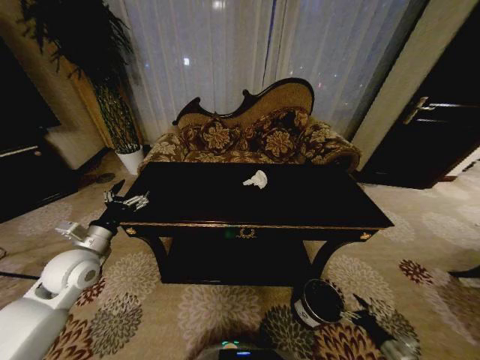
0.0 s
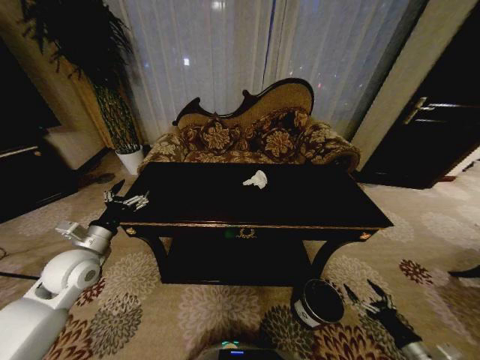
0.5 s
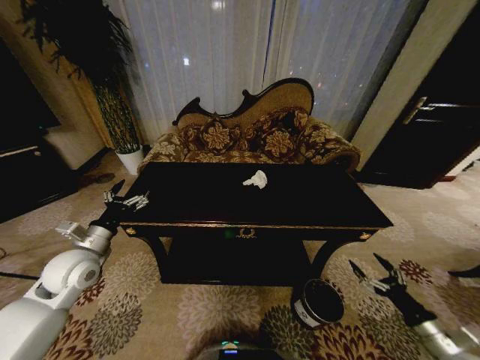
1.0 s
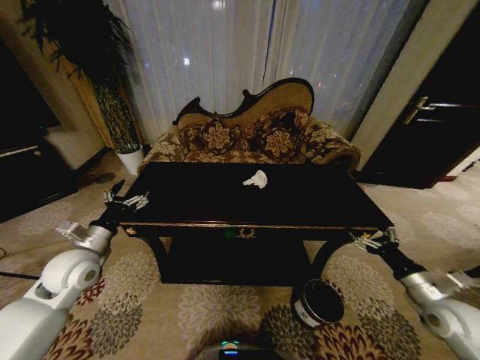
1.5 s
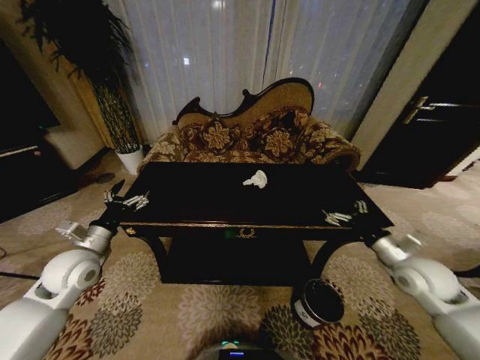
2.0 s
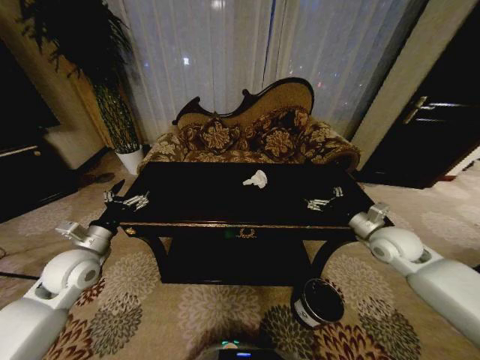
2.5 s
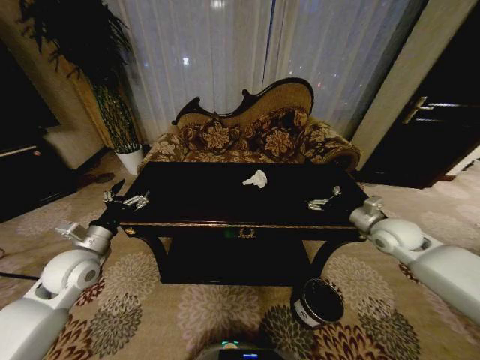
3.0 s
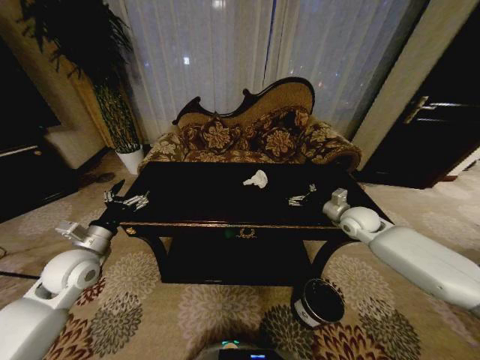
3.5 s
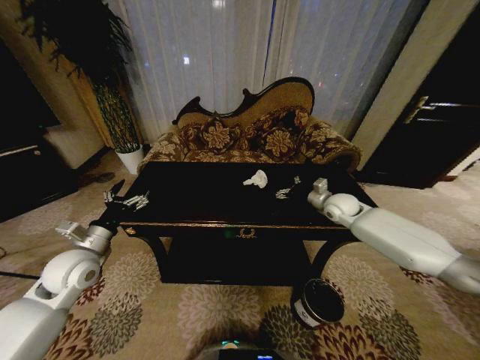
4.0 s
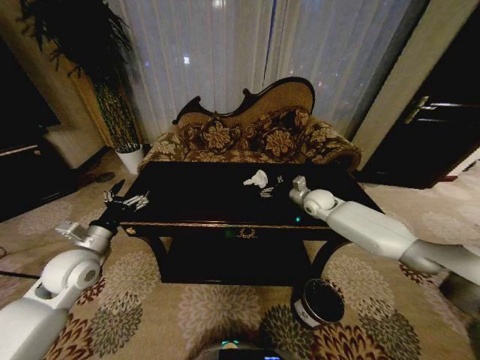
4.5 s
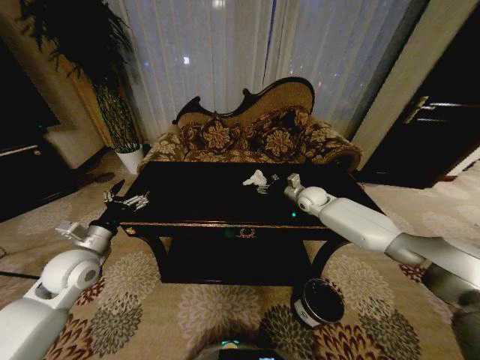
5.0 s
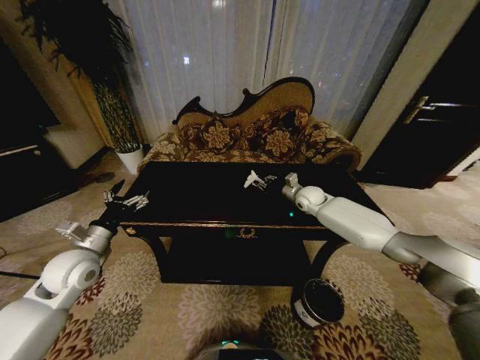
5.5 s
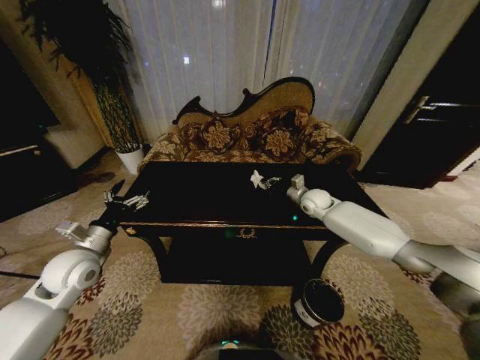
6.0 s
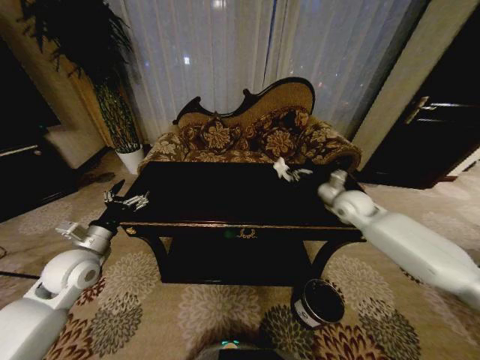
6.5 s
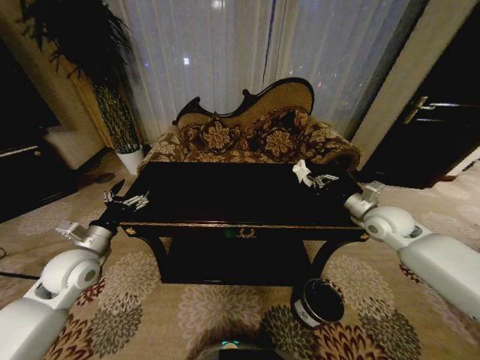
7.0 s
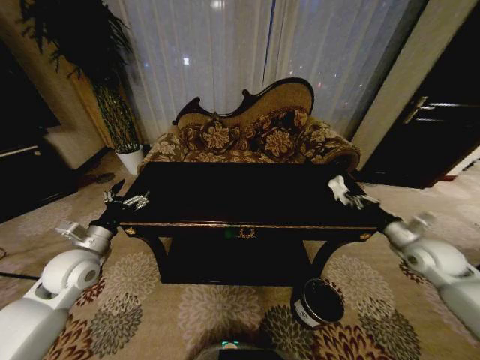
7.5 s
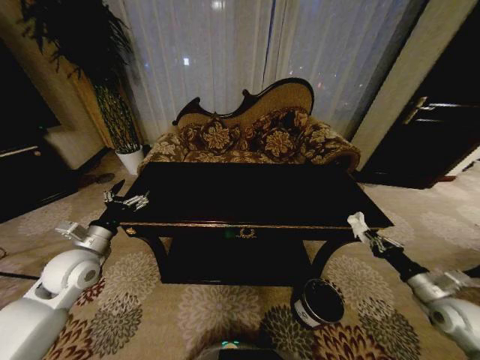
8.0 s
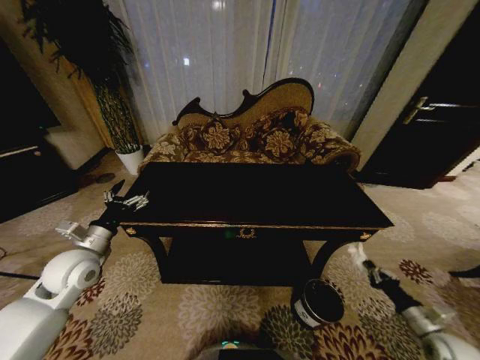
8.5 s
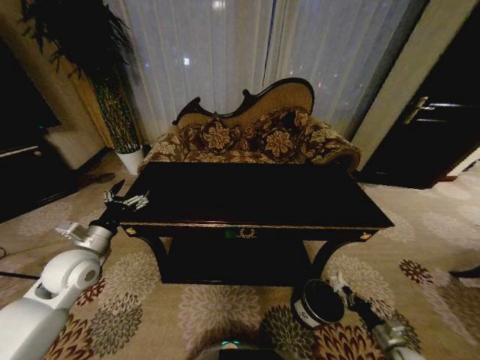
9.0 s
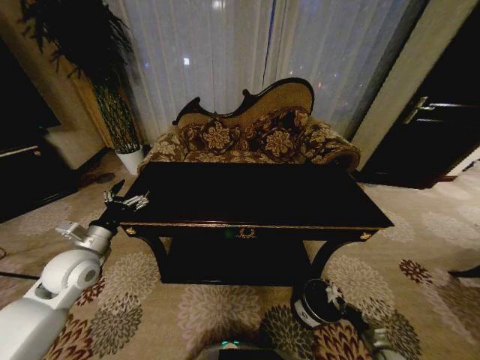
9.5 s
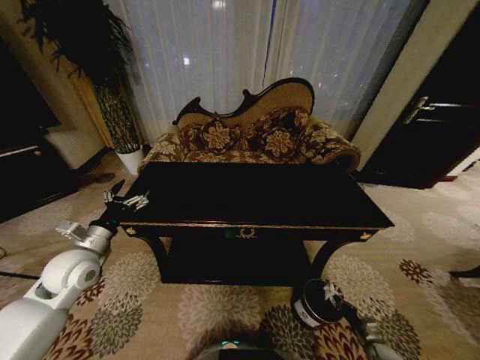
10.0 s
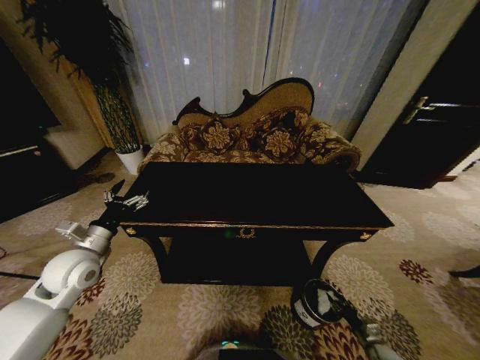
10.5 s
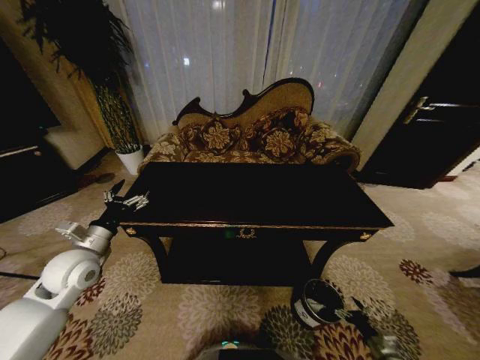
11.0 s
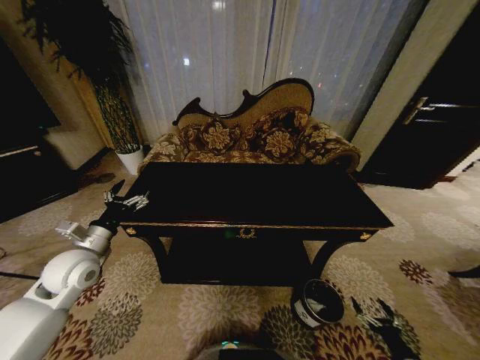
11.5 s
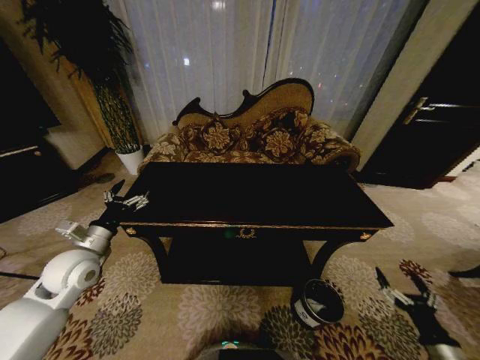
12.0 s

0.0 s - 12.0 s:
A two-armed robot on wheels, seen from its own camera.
Task of the whole recording: Move to the front of the table and place the trash on the table into the trash bin.
0.0 s - 2.0 s: The right gripper shifts some 35 cm upward and forward.
2.0 s - 4.0 s: The right gripper moves forward, about 20 cm.
4.0 s - 6.0 s: The right gripper shifts some 5 cm to the left, and closes its fingers.
6.0 s - 8.0 s: The right gripper goes some 40 cm backward and to the right.
8.0 s - 10.0 s: The right gripper goes about 30 cm downward.
10.0 s - 12.0 s: The right gripper travels upward by approximately 25 cm, and opens.

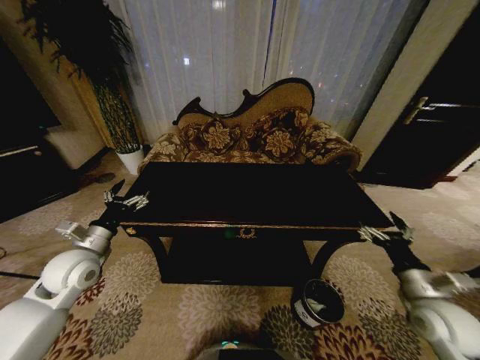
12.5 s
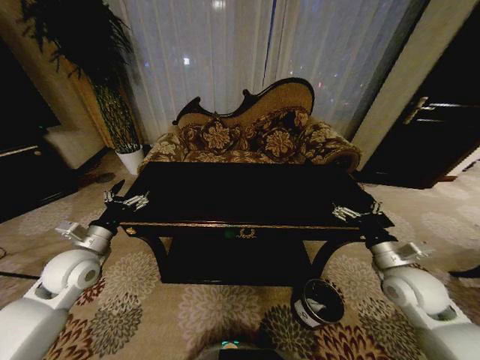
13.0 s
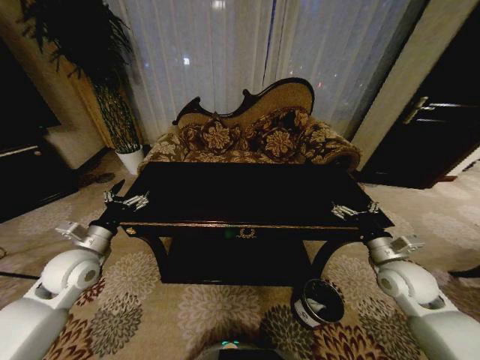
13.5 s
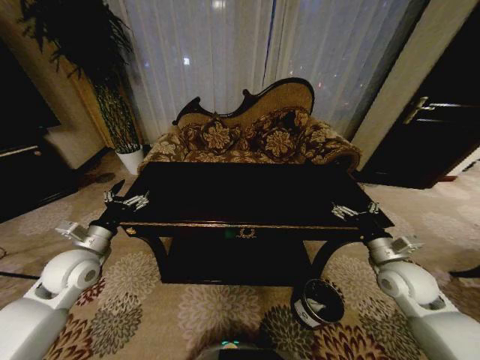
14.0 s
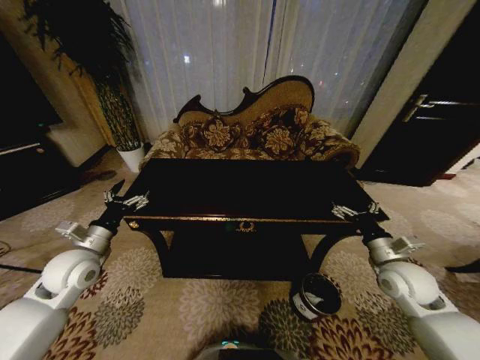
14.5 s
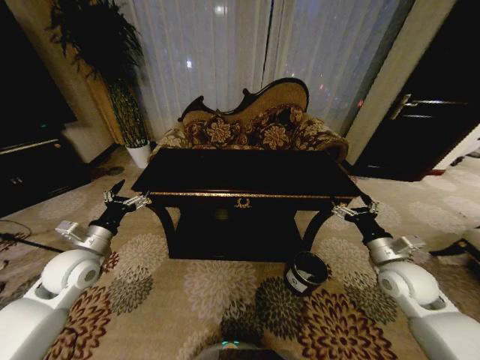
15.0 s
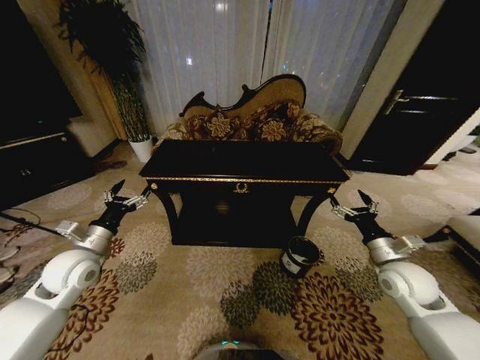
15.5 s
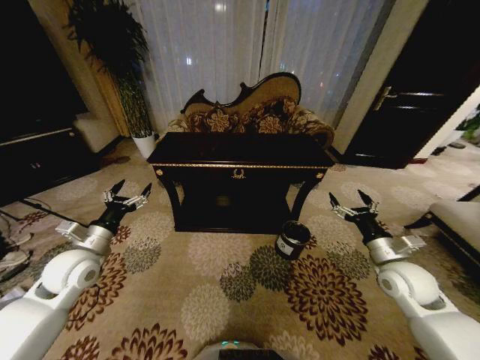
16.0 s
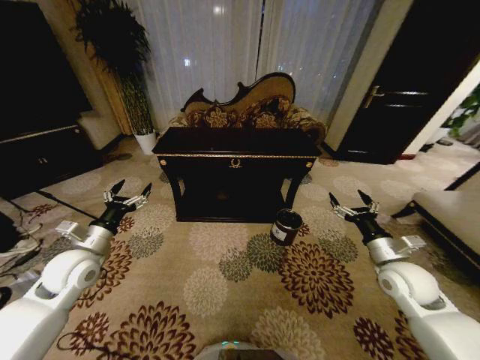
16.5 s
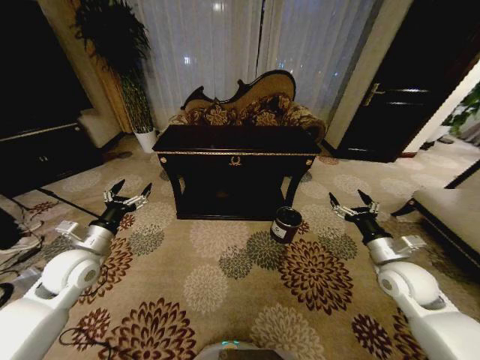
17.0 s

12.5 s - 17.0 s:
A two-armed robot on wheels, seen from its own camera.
Task of the whole recording: Move to the front of the table and place the trash on the table into the trash bin.
12.5 s - 14.5 s: The right gripper is displaced forward by roughly 10 cm.

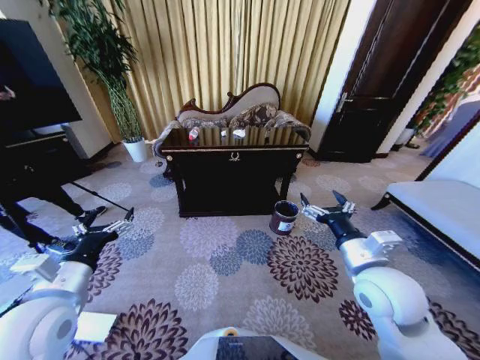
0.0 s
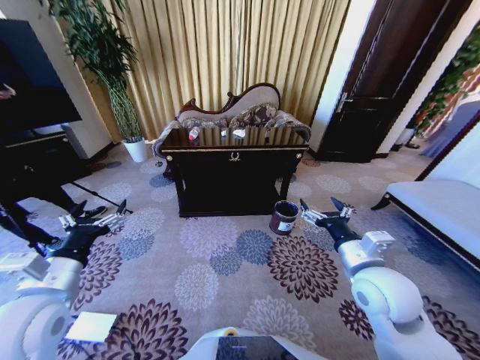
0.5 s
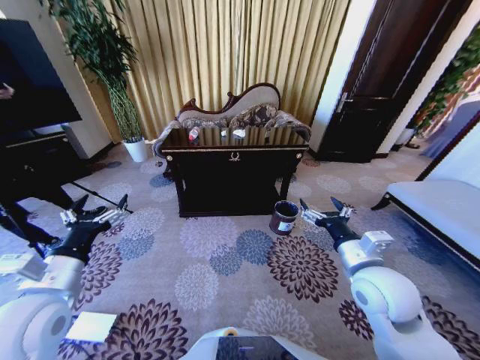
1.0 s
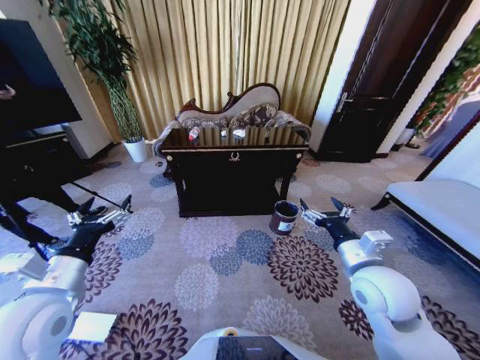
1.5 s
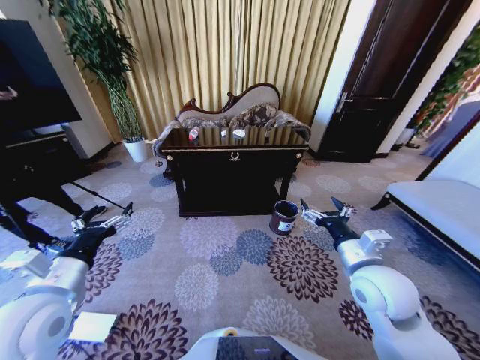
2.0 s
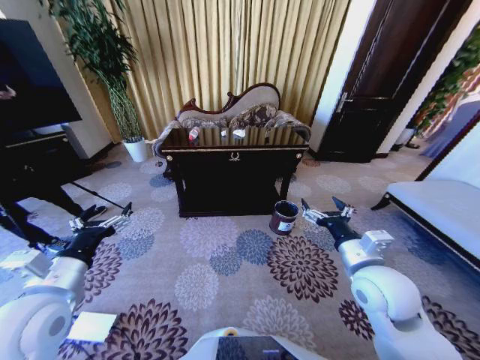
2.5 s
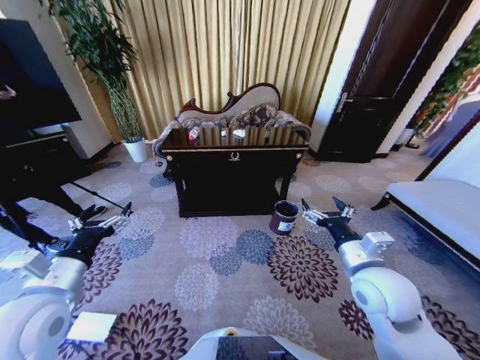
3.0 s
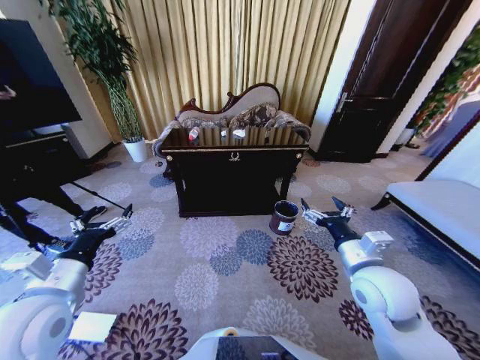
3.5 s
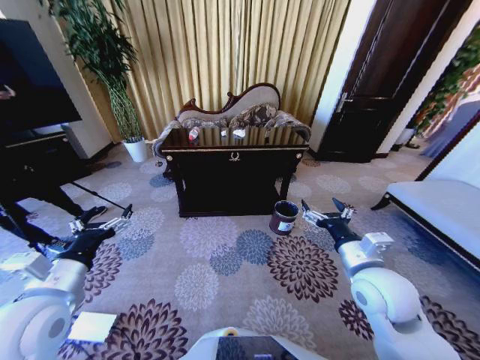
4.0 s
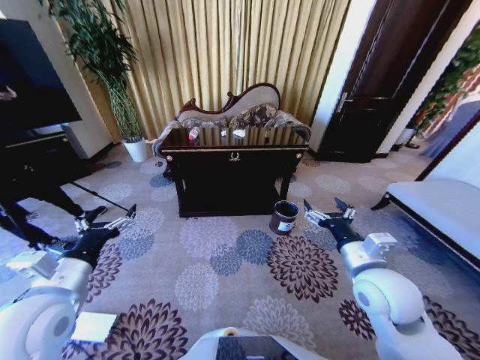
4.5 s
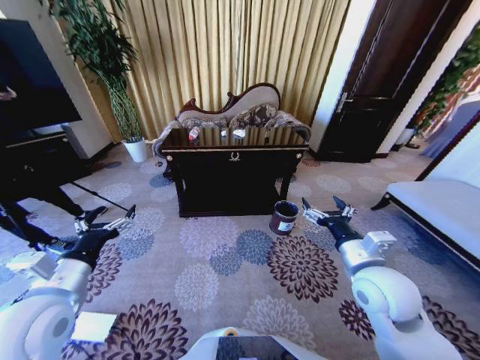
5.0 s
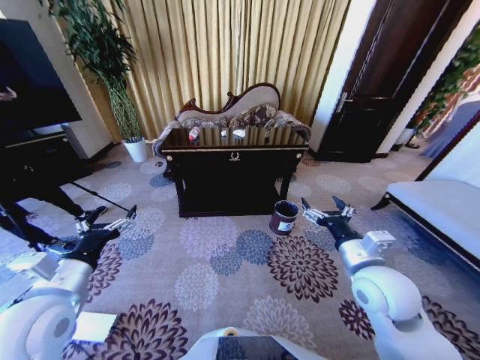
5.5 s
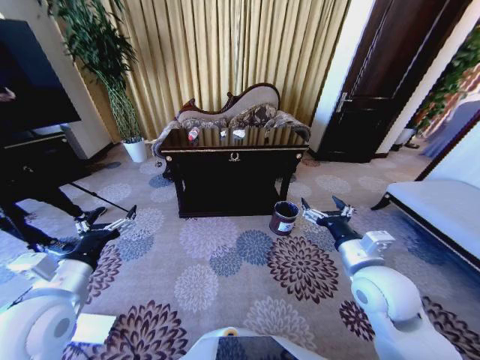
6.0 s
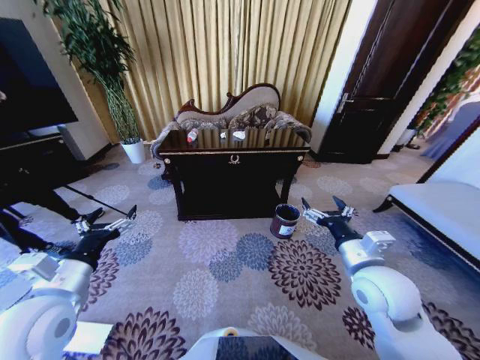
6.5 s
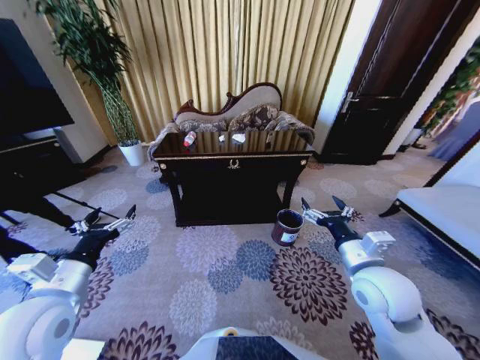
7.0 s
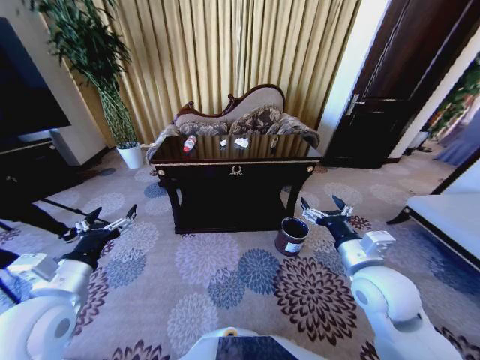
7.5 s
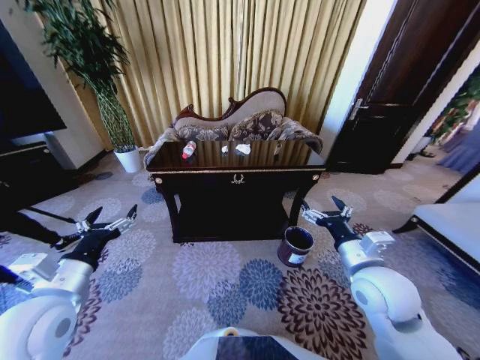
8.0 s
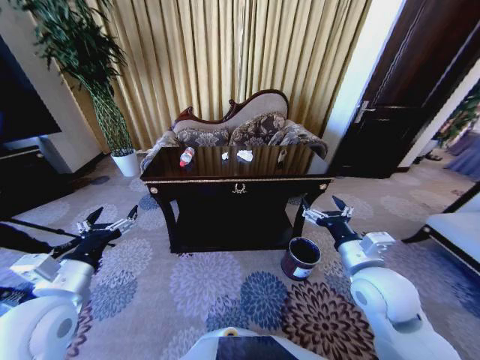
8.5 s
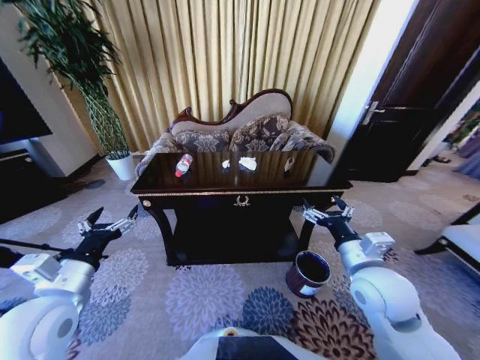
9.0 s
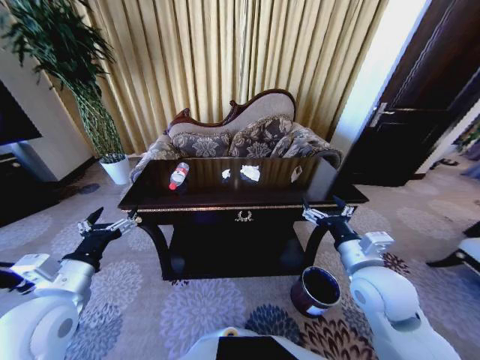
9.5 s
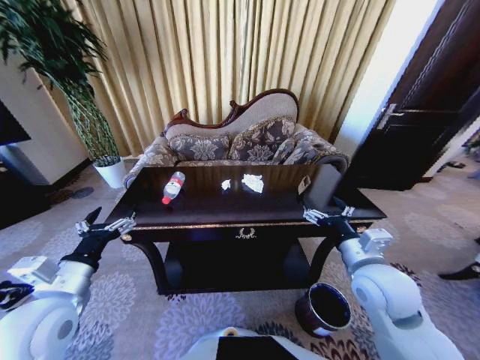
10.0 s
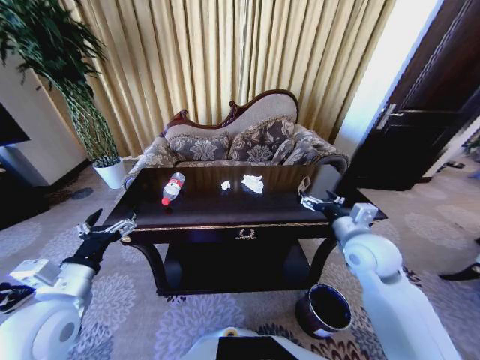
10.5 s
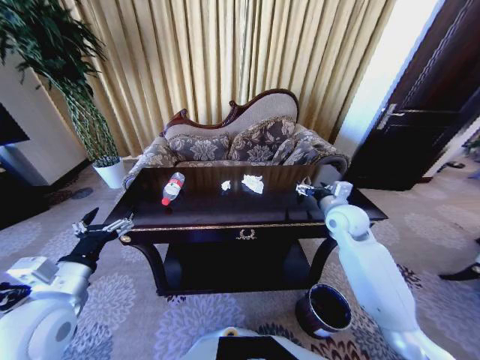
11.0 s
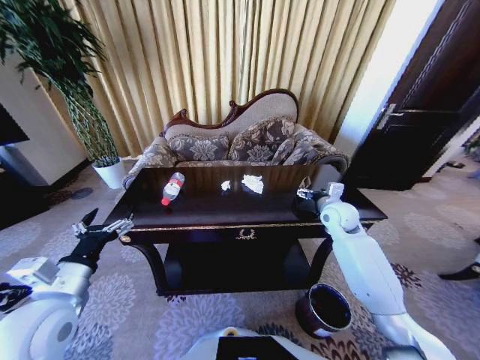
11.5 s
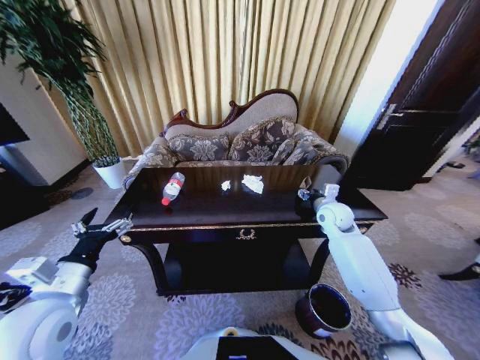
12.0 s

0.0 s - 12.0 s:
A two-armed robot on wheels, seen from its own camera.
Task of the whole recording: Move to the front of the table and place the trash on the table into the trash bin.
2.0 s - 6.0 s: Both grippers stay about where they are.
10.0 s - 12.0 s: The right gripper is displaced forward by some 20 cm.
